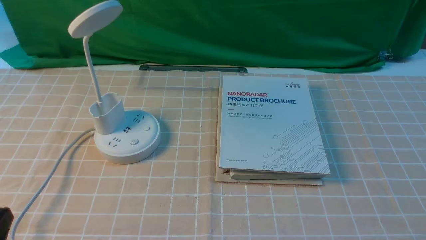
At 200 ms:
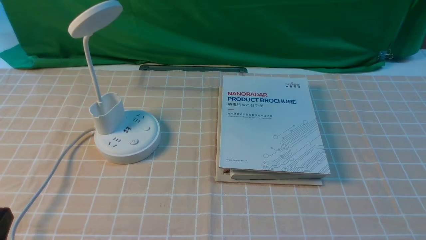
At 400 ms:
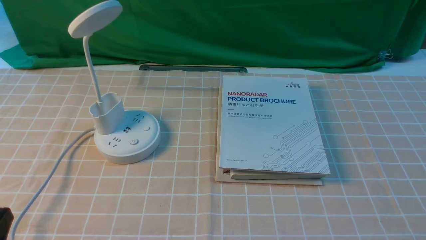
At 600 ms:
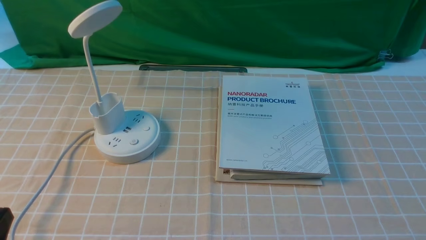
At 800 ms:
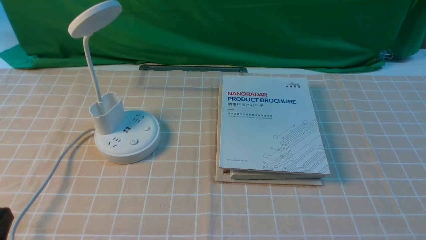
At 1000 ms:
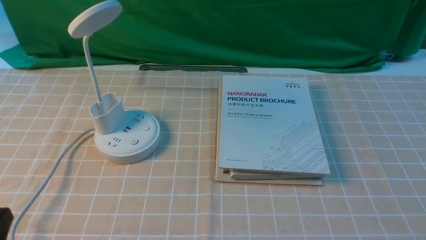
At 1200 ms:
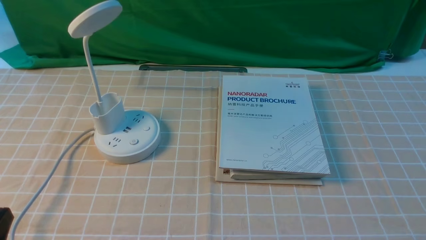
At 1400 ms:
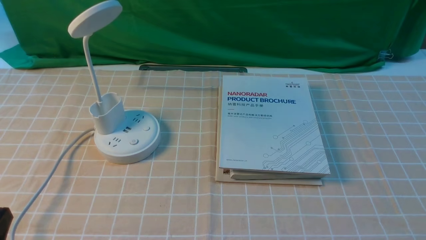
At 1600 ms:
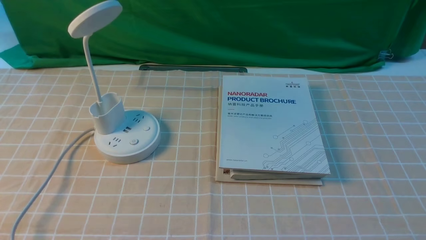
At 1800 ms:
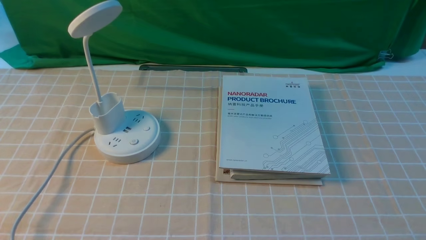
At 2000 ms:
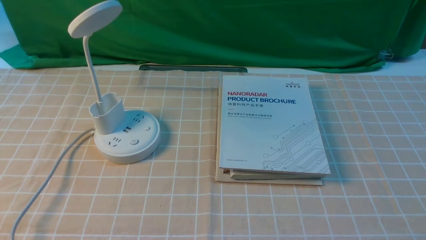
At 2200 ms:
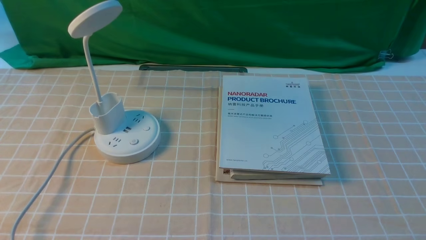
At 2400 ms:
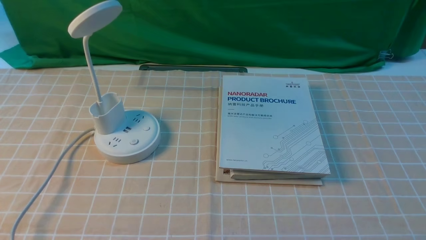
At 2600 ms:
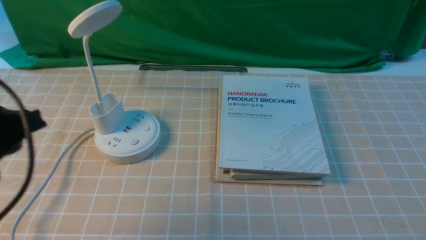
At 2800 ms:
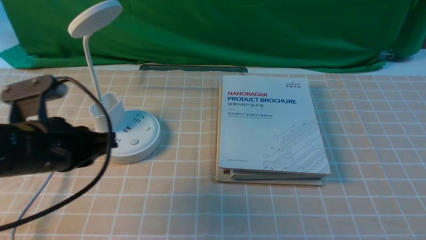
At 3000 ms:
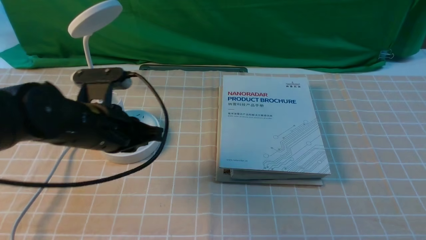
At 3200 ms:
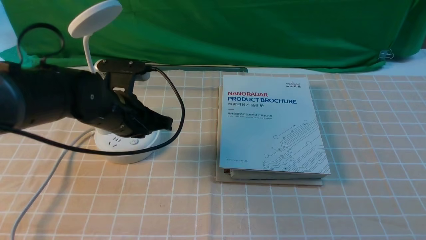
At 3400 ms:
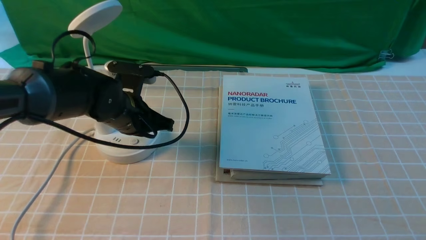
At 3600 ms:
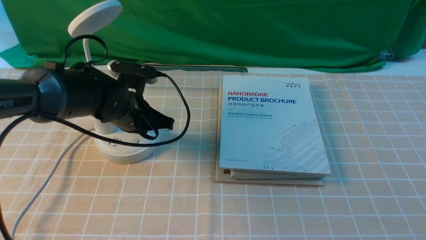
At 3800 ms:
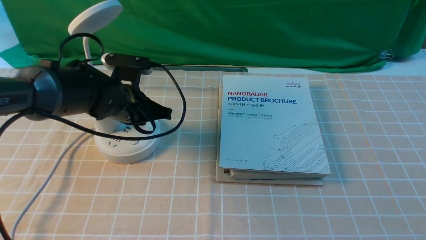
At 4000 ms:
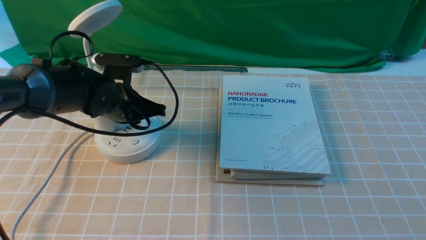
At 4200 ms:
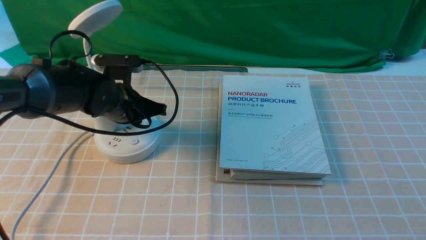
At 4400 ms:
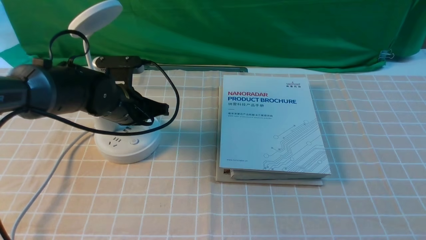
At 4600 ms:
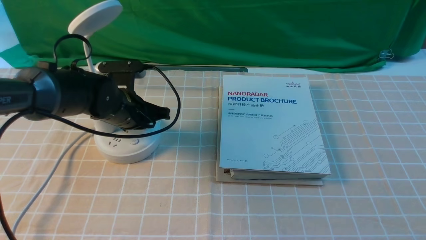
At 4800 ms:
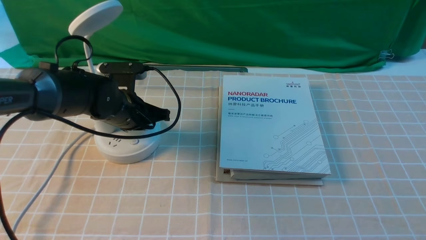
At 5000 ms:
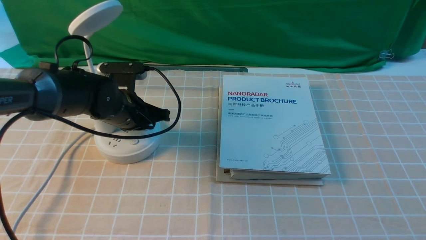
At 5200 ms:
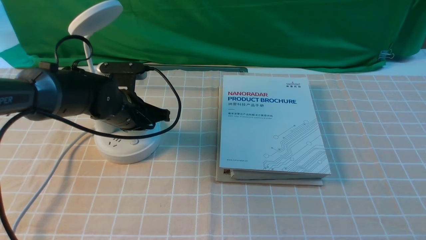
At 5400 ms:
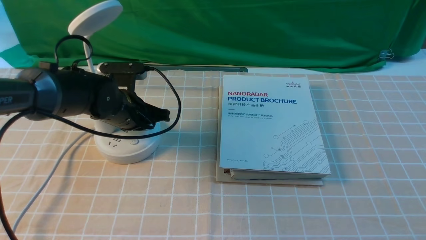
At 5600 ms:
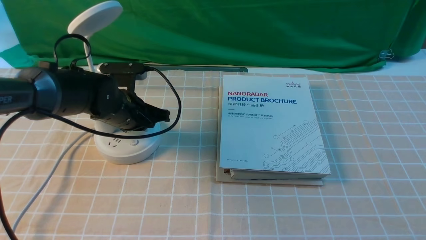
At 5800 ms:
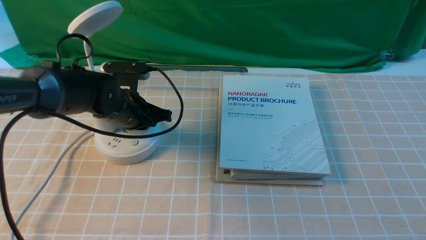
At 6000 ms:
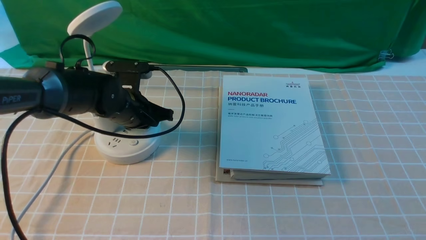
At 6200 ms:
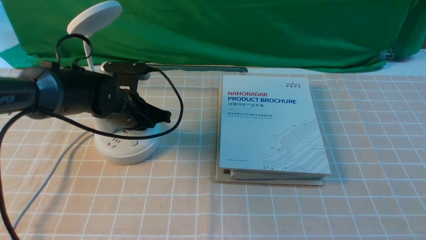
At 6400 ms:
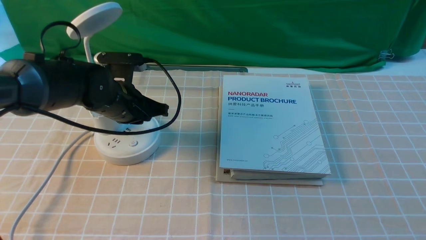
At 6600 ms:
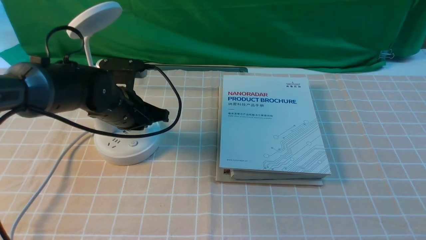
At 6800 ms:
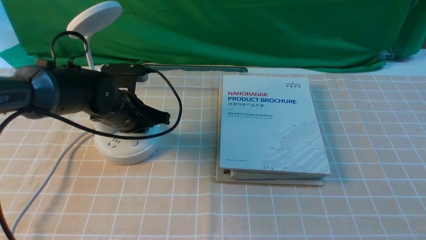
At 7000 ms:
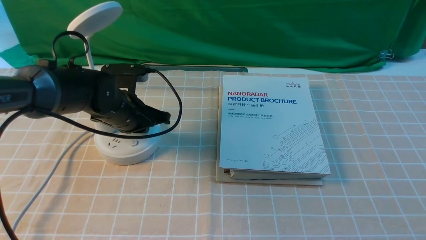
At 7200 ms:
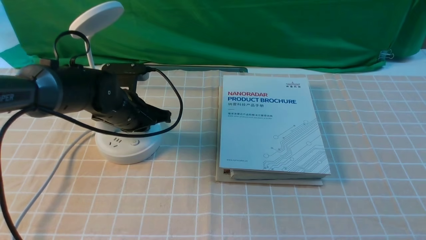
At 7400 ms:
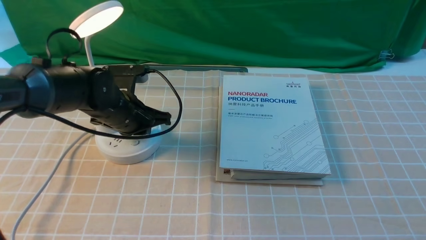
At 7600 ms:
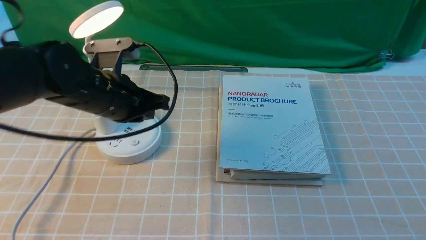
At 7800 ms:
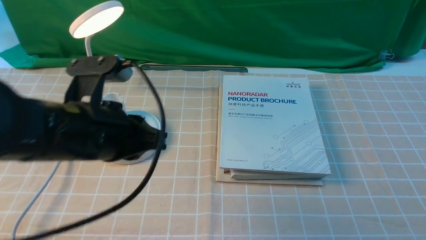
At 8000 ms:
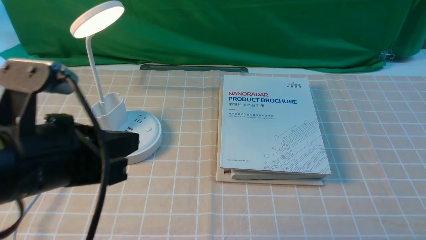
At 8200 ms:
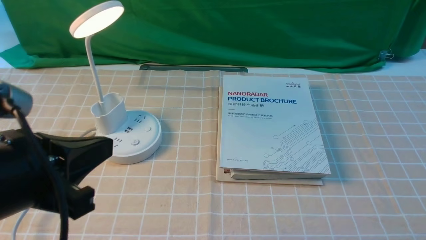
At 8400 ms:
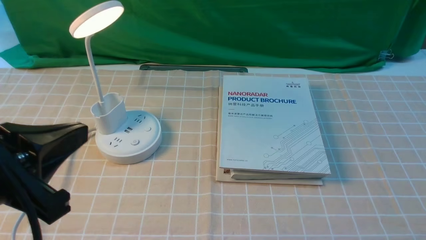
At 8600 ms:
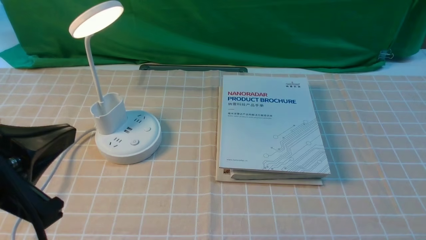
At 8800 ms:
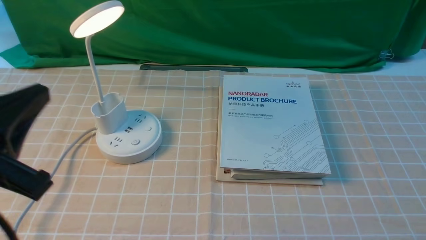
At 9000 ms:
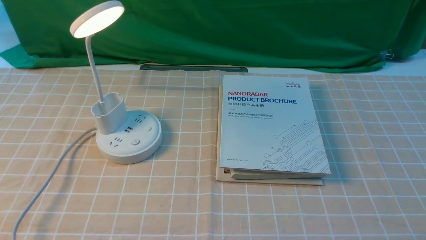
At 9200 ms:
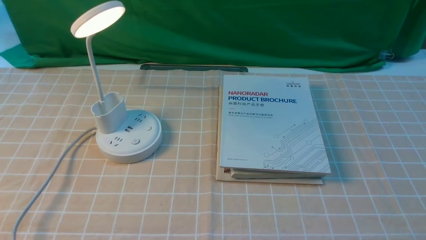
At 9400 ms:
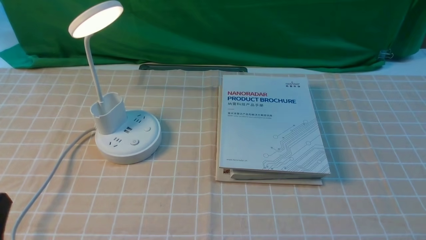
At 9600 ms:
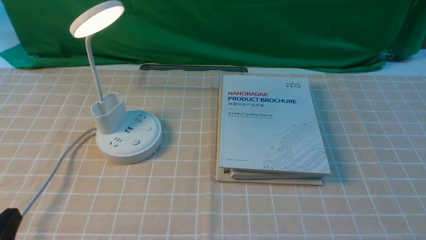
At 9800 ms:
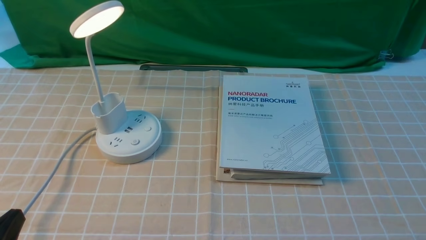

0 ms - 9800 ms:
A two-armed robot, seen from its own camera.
Step, 0 ms - 7800 ms: use the left arm to press the button switch on the lamp holder.
0 ms - 1400 ms: The two grippers keep their place.
1400 ms - 2800 ms: The left gripper goes roughly 20 cm forward.
2800 ms - 4200 ms: The left gripper is displaced forward and downward by roughly 15 cm.
4200 ms - 7000 ms: The grippers stay close to where they were, moving slightly.
7000 ms - 8400 ms: The left gripper moves backward and upward, roughly 30 cm.
8400 ms - 9800 ms: The left gripper is displaced downward and backward by roughly 15 cm.

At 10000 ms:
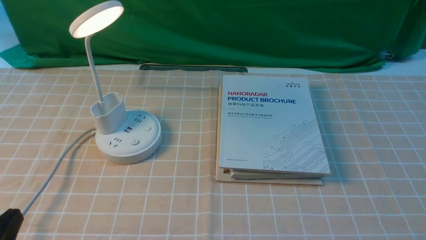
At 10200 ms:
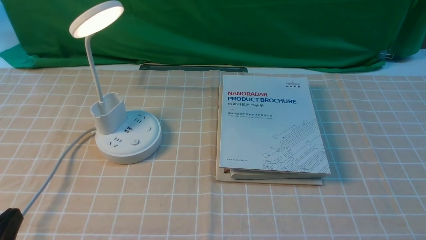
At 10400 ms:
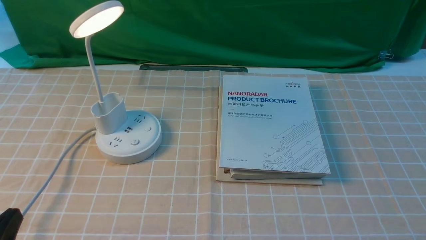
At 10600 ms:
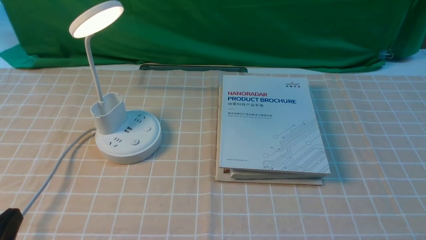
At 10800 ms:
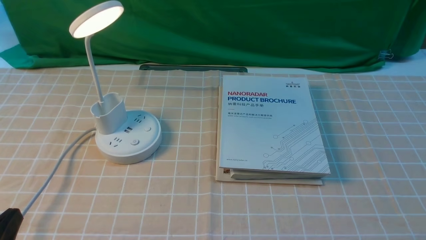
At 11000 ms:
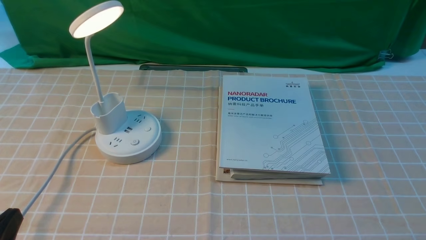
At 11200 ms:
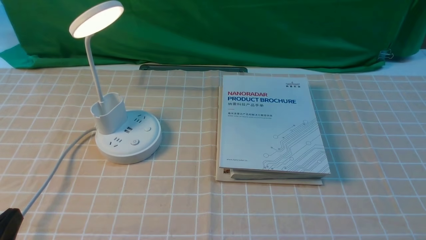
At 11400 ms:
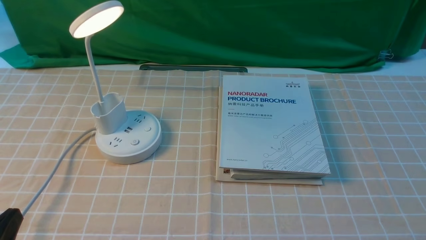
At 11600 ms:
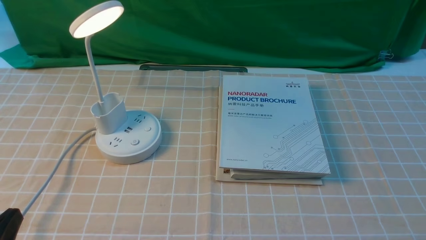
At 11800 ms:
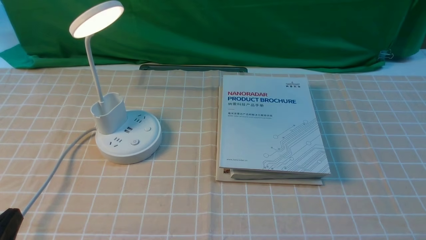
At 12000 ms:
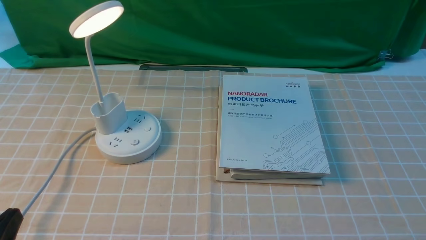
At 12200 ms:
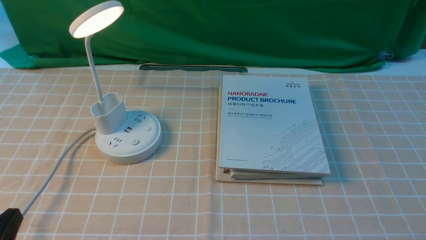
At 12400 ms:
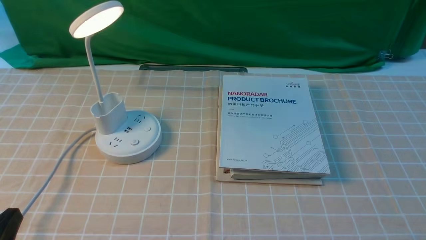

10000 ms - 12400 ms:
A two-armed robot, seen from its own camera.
10000 ms - 12400 ms: Both grippers stay about where they are.

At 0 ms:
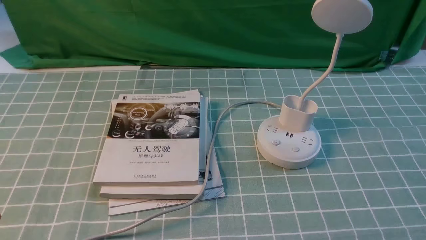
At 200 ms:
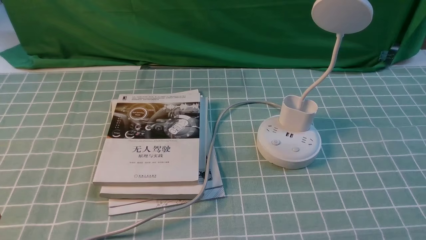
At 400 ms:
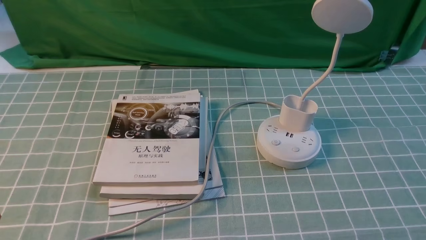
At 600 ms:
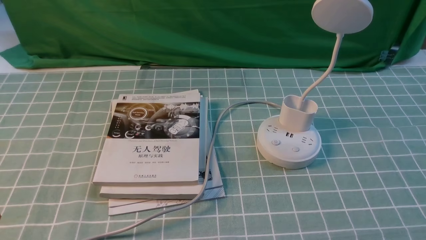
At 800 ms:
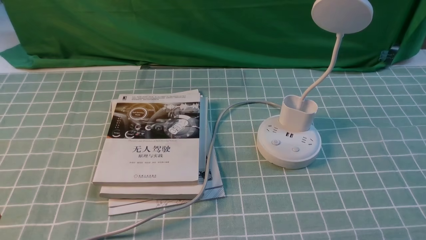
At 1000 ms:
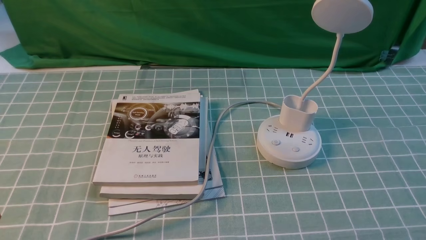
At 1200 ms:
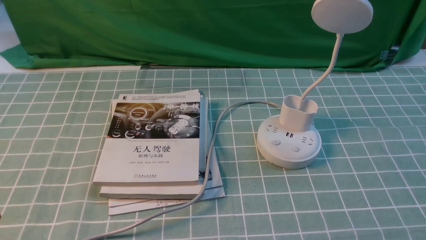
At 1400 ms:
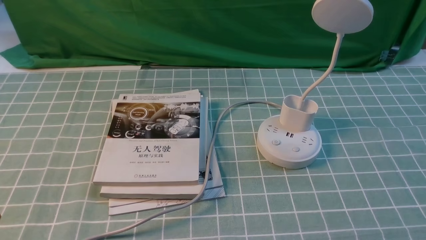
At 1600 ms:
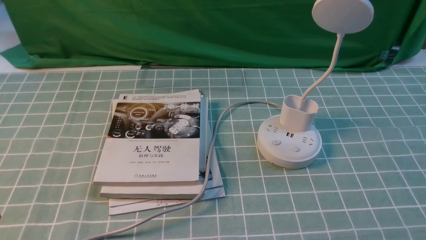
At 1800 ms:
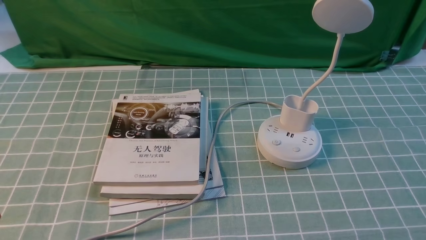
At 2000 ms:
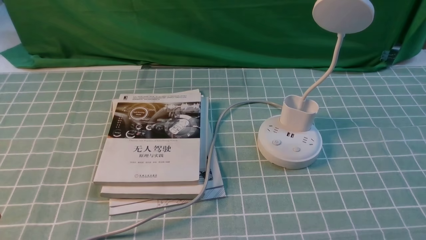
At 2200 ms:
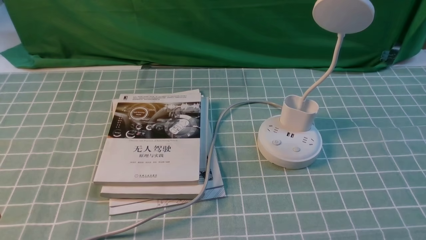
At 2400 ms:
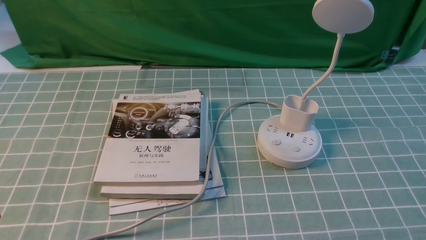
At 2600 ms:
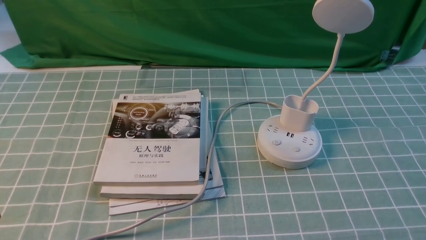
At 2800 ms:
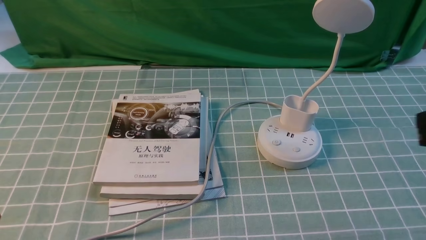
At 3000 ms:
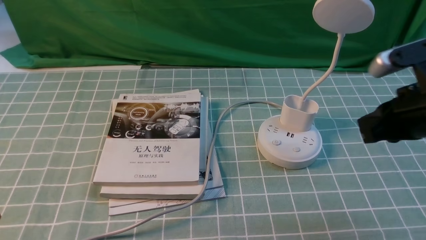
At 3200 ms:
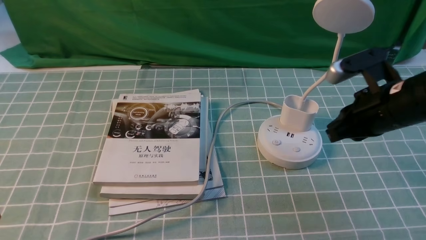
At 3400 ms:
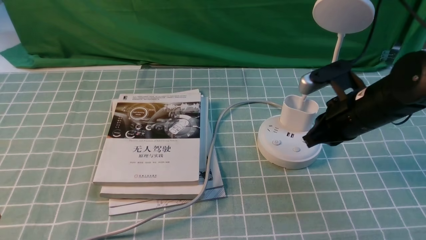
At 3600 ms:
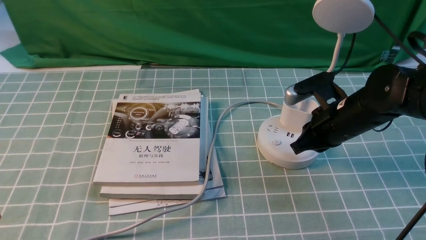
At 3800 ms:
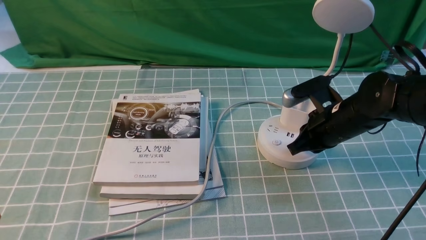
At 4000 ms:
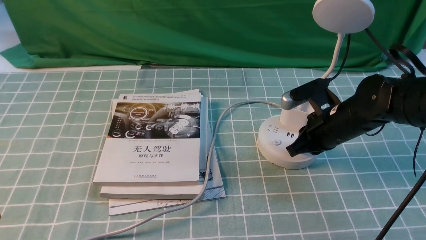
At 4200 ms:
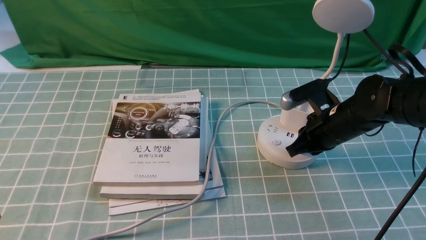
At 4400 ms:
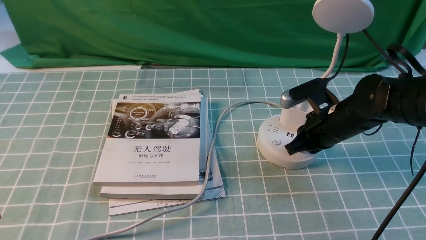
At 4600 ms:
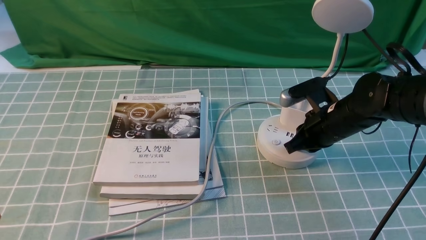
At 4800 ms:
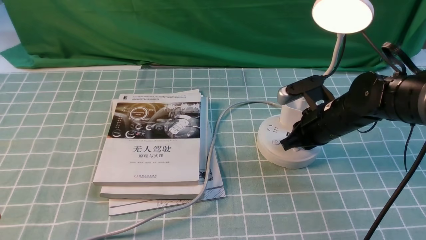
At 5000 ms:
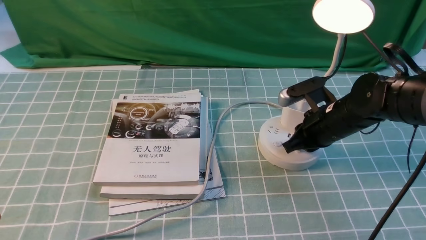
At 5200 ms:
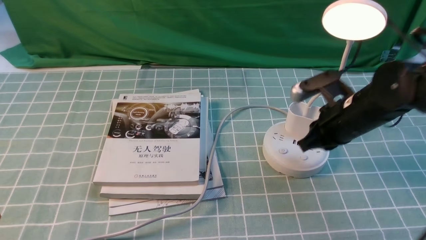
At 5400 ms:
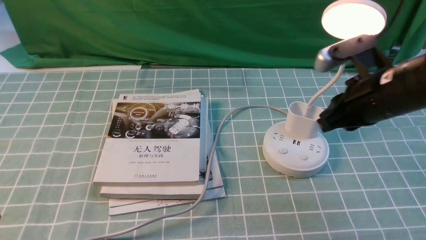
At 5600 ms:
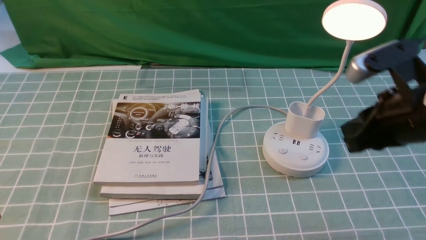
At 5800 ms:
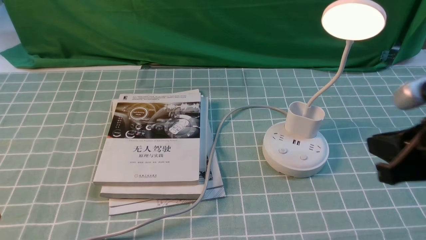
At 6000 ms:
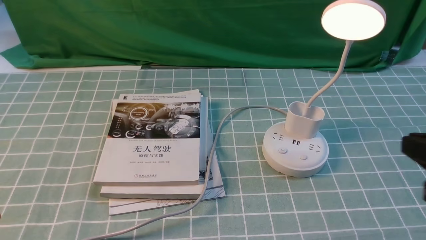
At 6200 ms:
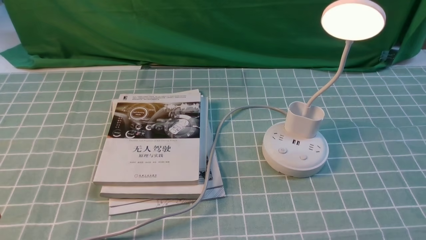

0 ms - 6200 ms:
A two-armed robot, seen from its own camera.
Step, 0 ms - 5000 ms: use the right arm to press the button switch on the lamp holder.
1600 ms - 3200 ms: The right gripper moves forward and to the left, roughly 25 cm, and closes up.
3200 ms - 4600 ms: The right gripper shifts some 10 cm downward and forward.
4600 ms - 6200 ms: The right gripper goes roughly 30 cm backward and upward, and opens up.
